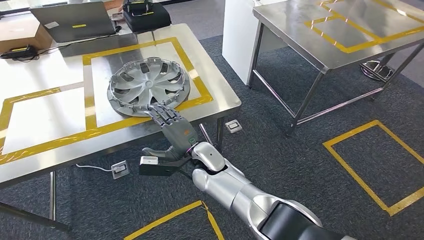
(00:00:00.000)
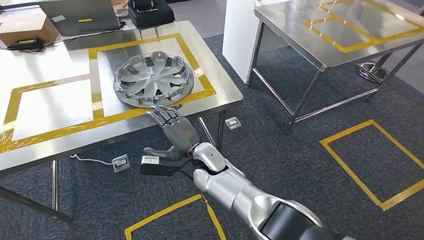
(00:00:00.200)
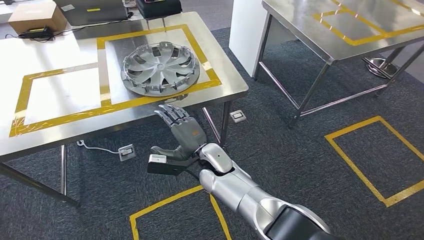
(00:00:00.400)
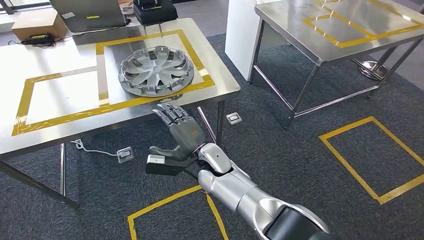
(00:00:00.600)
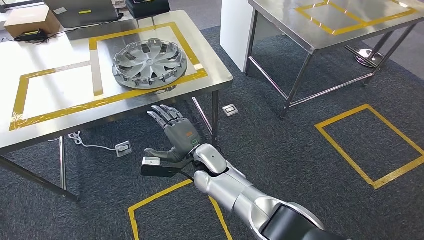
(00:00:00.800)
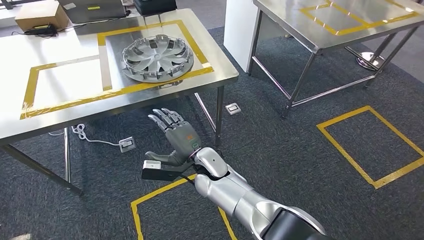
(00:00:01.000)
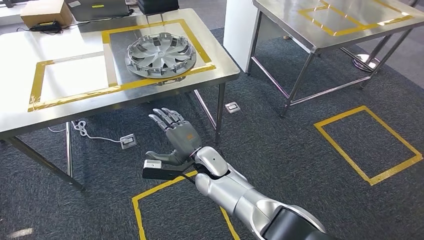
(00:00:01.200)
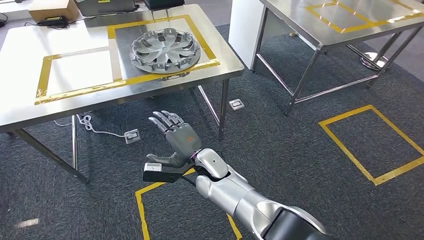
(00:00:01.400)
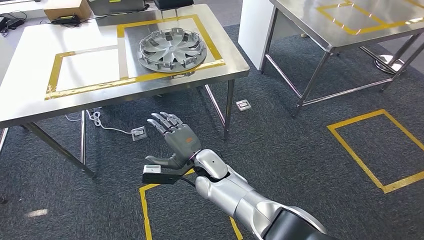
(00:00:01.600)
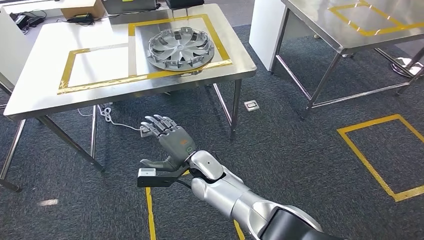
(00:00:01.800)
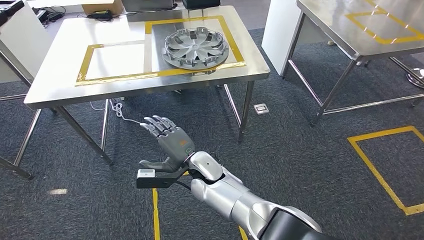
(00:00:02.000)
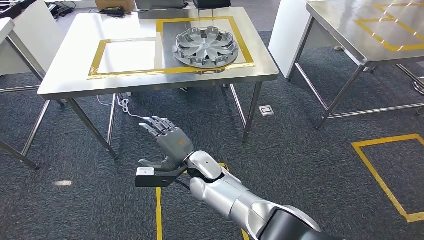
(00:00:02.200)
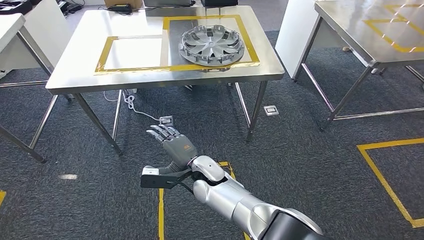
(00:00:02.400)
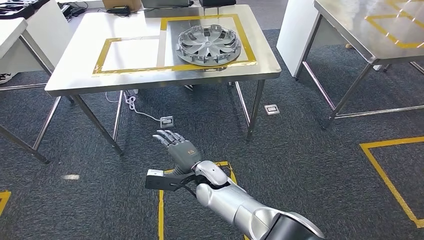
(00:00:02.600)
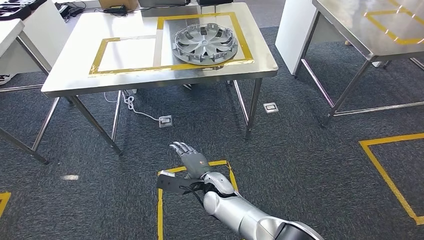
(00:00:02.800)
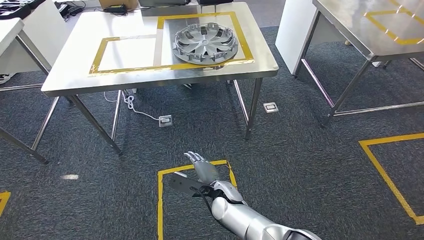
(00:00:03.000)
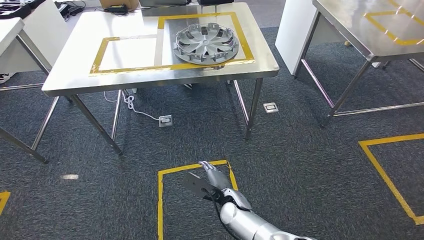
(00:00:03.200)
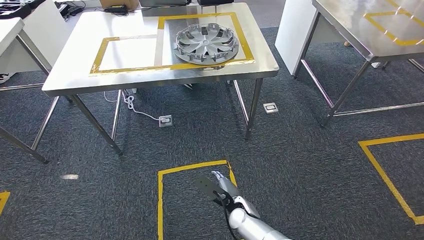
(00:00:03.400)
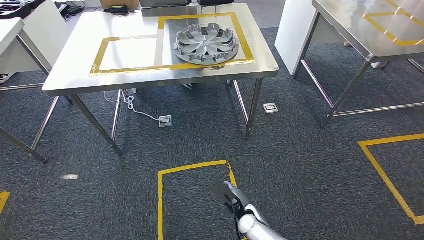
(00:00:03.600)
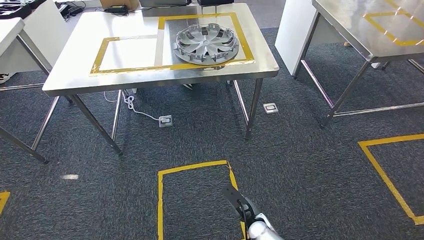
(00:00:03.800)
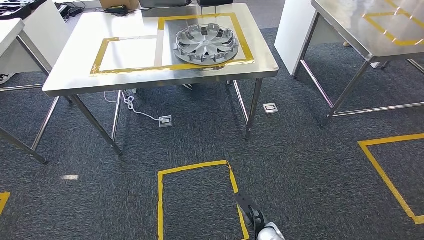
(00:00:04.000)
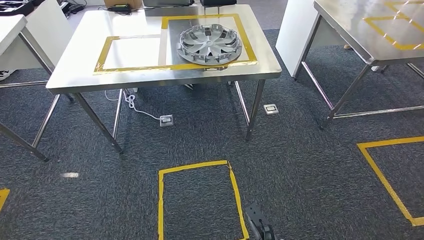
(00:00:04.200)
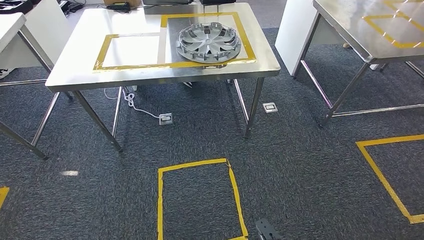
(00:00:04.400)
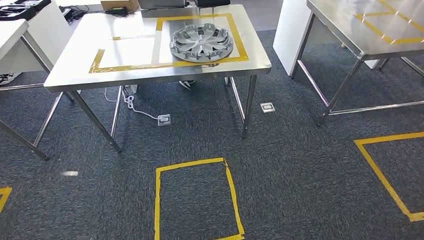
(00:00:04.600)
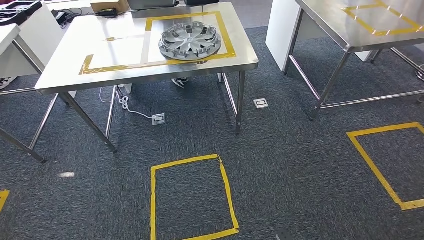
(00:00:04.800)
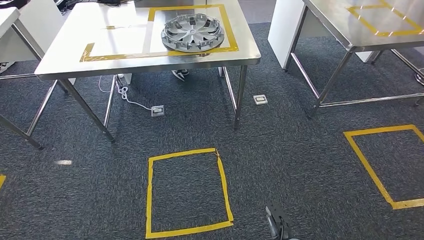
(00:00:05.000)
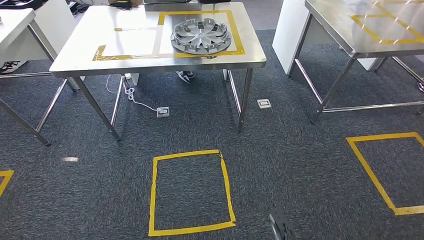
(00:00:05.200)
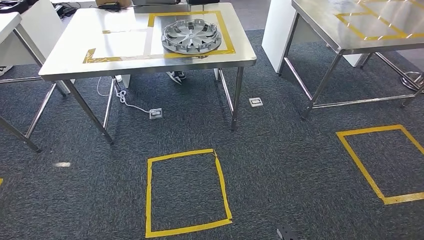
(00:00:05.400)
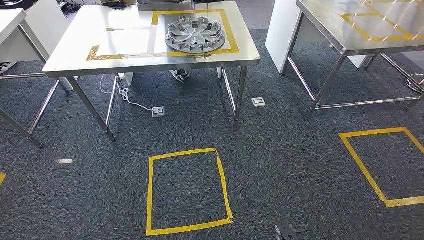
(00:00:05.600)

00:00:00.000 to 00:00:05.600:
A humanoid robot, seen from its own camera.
Step, 00:00:00.200 to 00:00:05.600: Move to the initial position of the shelf.
00:00:02.800 to 00:00:04.200: The right hand is displaced backward, to the right and downward by approximately 30 cm, while the left hand moves about 5 cm.

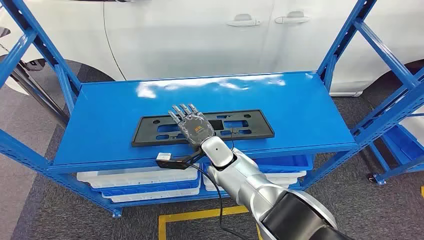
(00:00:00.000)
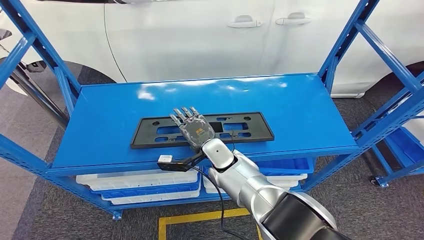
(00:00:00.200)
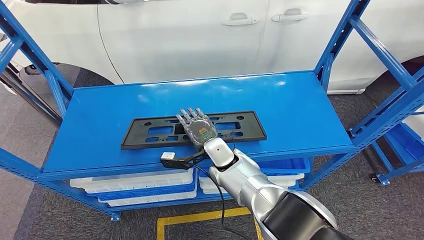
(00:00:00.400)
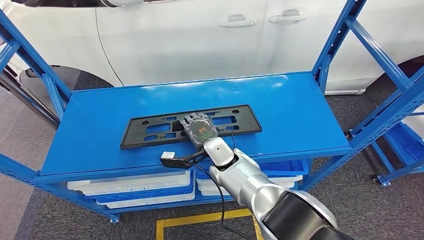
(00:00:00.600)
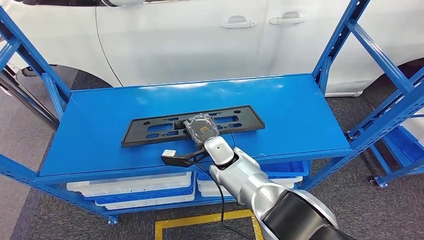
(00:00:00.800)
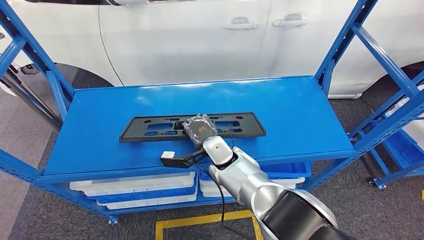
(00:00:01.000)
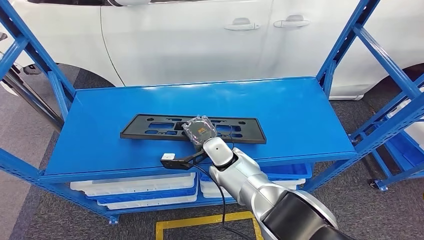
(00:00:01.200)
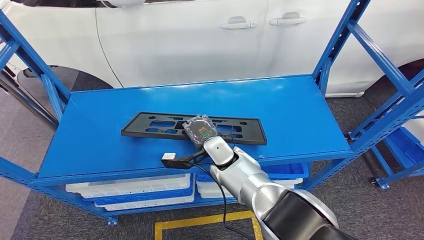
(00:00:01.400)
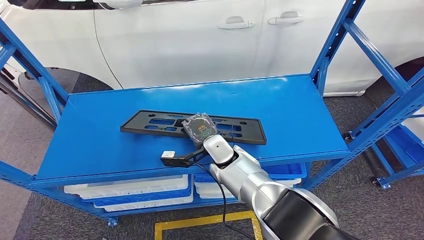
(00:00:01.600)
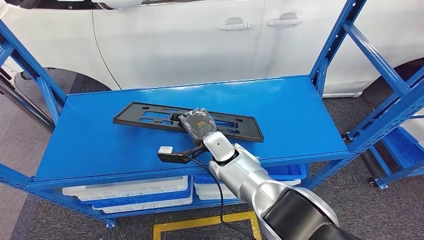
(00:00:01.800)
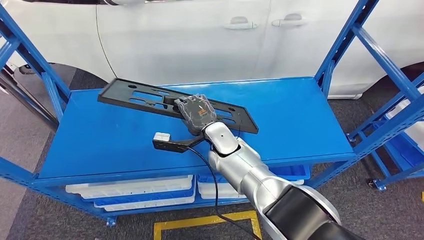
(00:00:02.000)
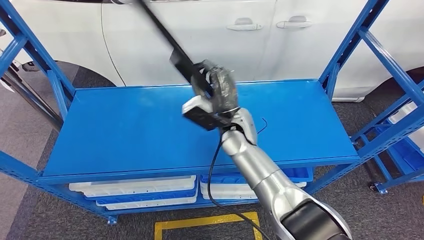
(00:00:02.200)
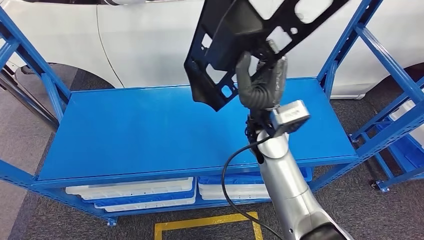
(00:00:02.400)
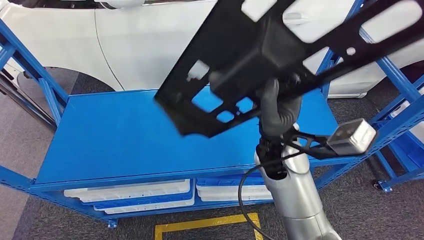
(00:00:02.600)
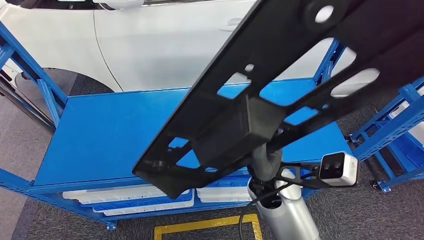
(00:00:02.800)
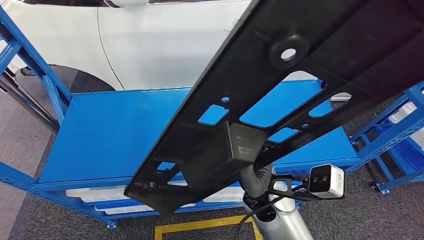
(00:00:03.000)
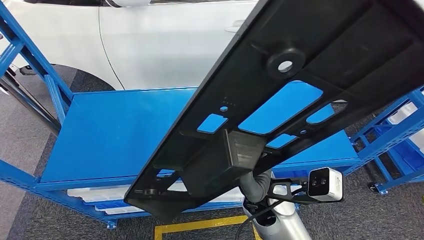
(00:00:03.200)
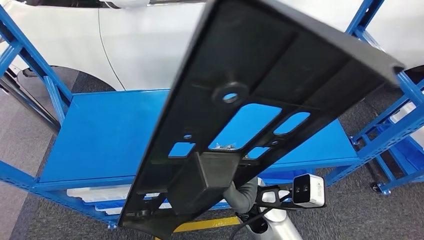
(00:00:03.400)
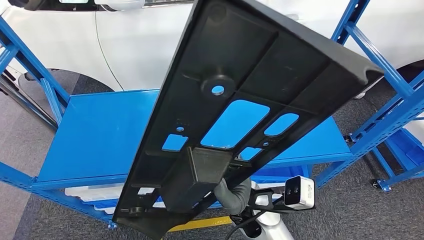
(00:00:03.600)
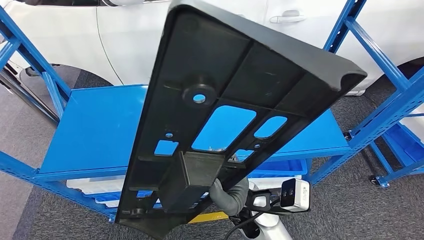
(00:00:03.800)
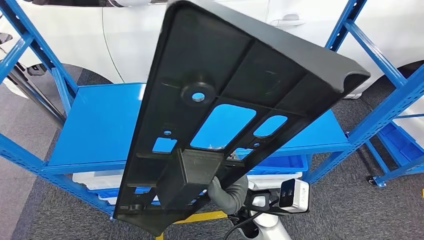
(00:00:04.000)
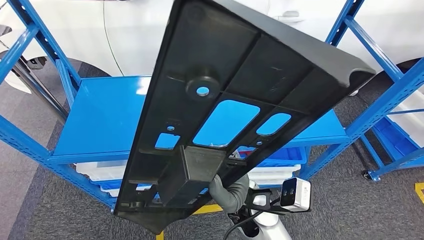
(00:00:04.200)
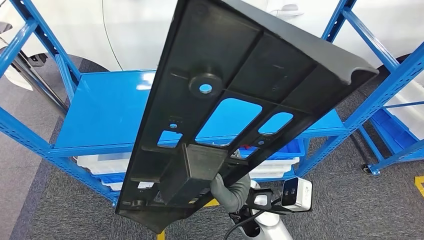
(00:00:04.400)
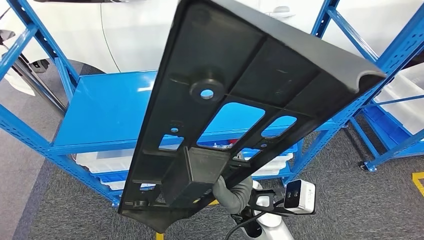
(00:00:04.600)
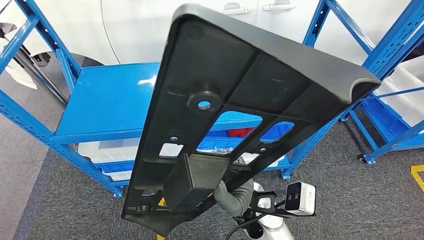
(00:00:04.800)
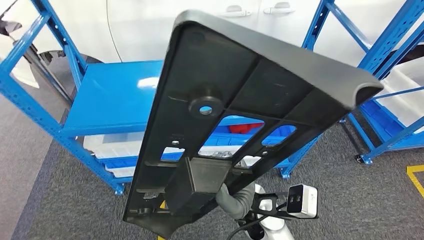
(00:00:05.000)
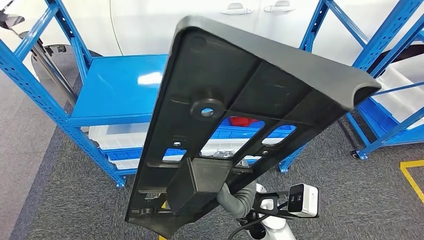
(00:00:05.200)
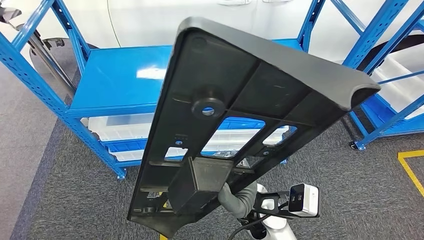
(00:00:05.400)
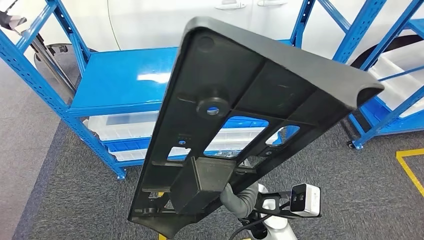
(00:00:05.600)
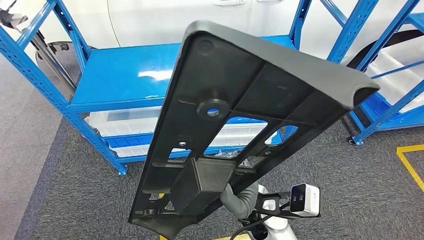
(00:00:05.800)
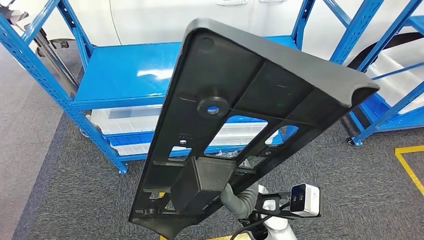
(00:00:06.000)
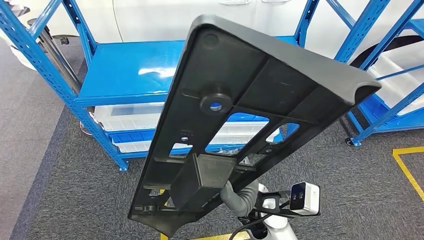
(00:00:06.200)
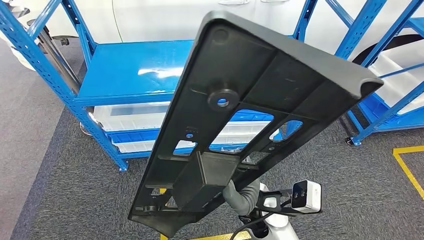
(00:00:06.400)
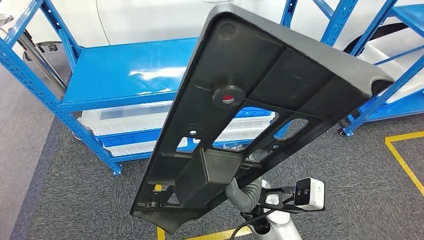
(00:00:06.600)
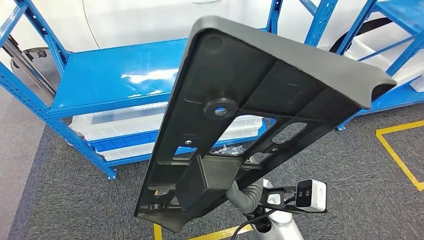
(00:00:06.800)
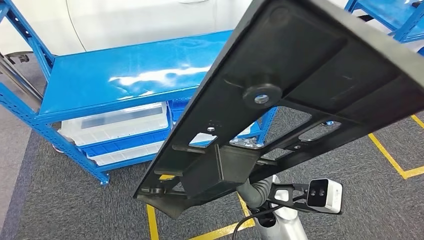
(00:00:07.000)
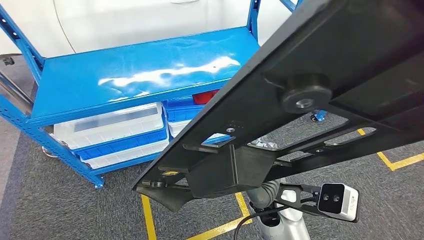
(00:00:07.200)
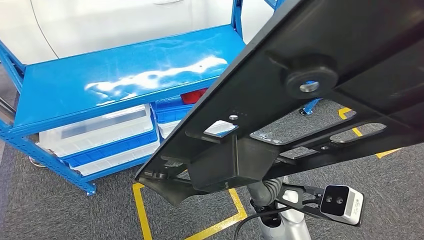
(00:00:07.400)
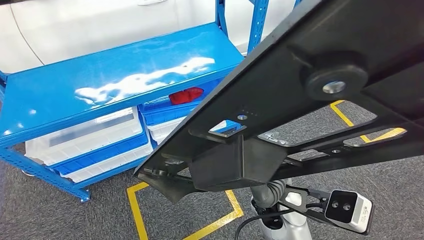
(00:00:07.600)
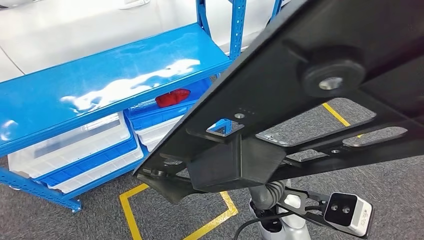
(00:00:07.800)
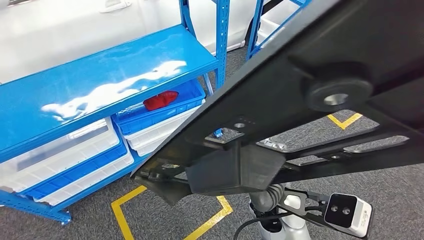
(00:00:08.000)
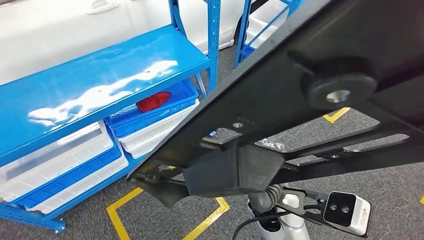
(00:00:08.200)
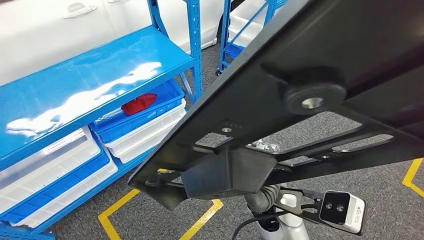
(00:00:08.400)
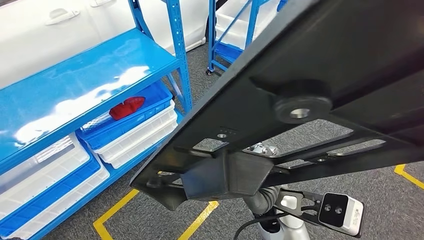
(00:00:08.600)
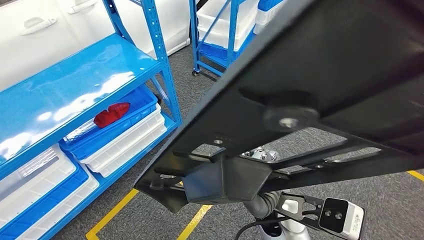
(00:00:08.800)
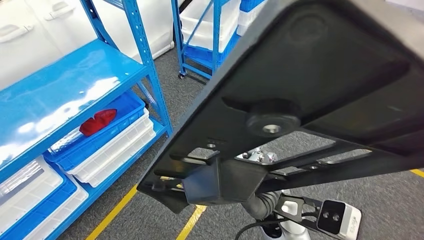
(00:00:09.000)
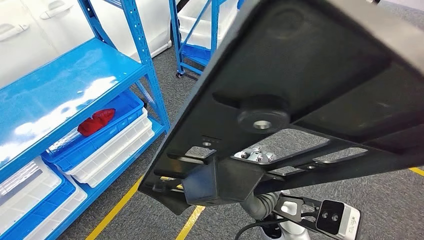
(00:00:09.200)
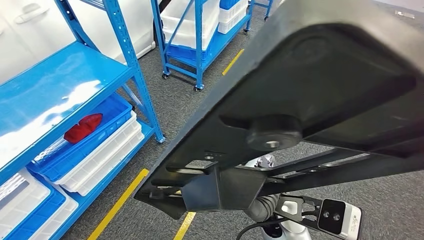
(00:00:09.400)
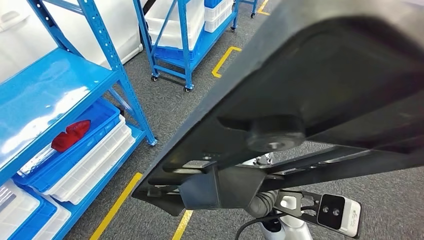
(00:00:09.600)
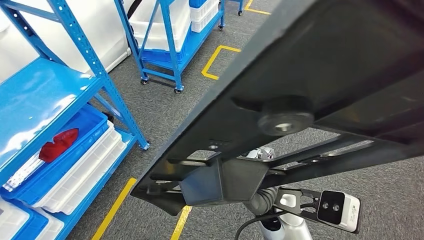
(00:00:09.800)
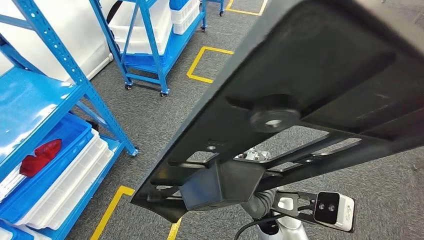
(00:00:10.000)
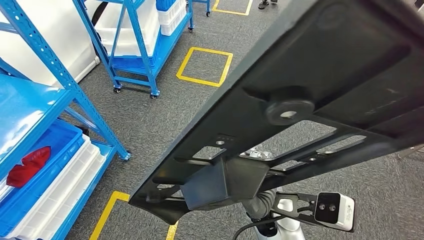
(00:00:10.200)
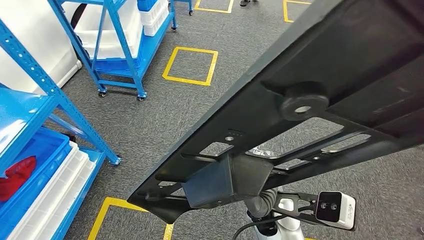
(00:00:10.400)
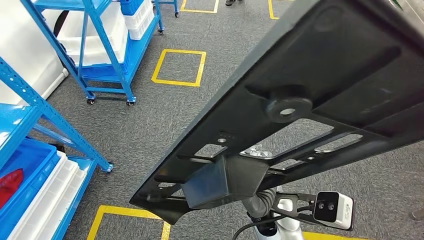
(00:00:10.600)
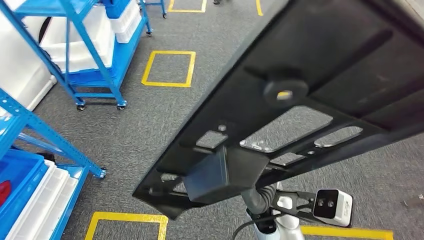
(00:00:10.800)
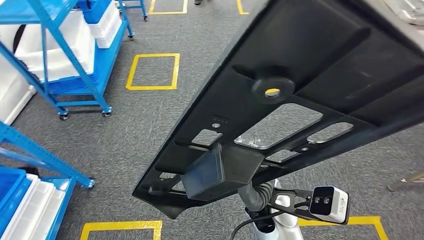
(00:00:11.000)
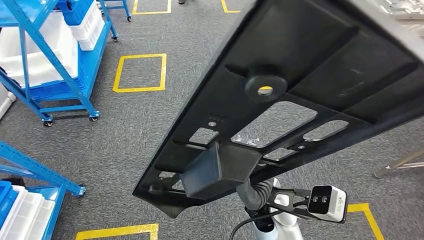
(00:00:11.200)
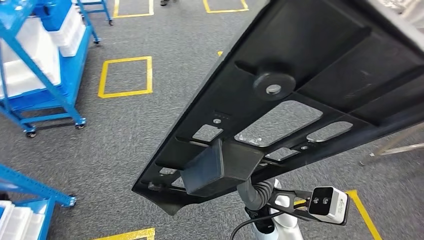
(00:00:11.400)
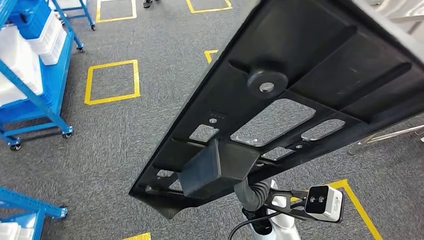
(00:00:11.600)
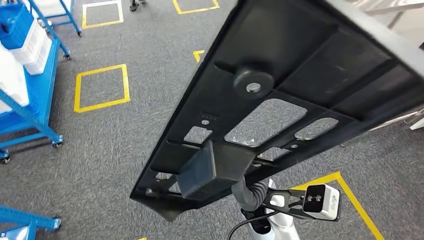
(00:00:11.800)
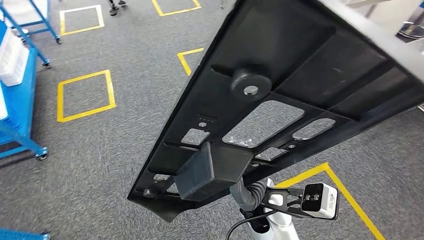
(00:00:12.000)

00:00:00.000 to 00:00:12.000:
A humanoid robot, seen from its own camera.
Step, 00:00:00.000 to 00:00:02.800: Pick up the large material from the shelf.
